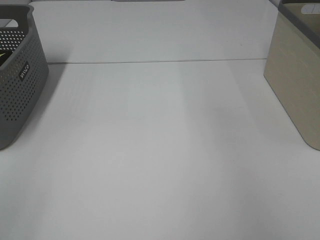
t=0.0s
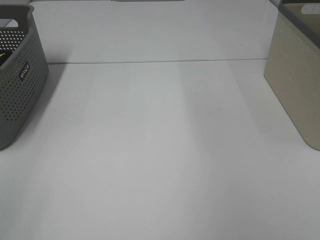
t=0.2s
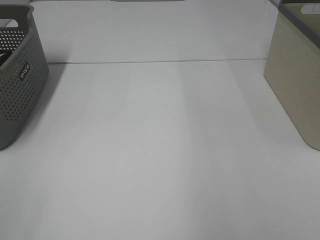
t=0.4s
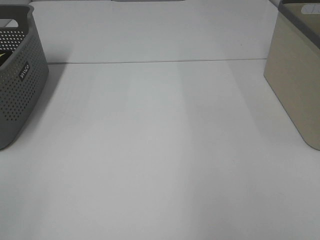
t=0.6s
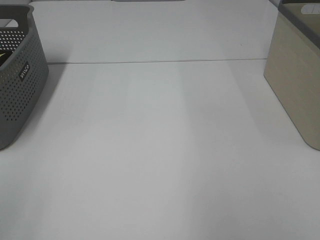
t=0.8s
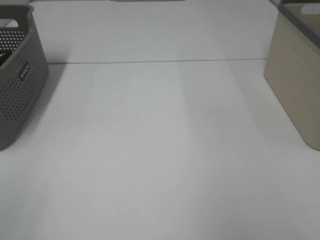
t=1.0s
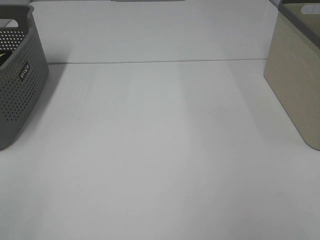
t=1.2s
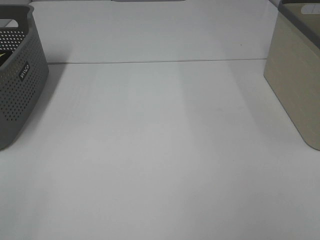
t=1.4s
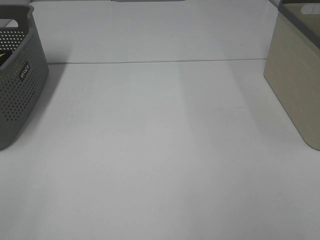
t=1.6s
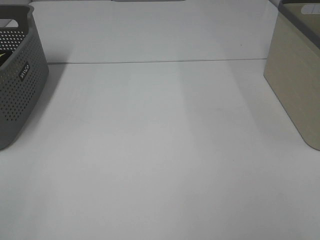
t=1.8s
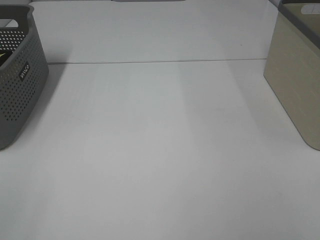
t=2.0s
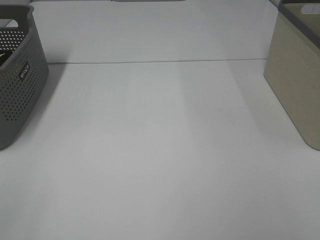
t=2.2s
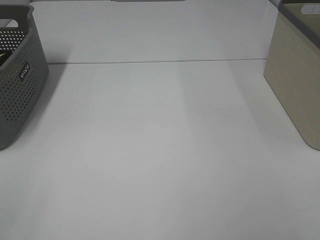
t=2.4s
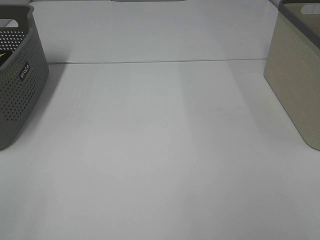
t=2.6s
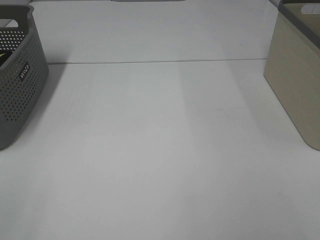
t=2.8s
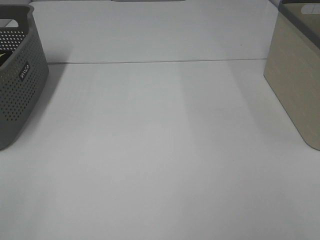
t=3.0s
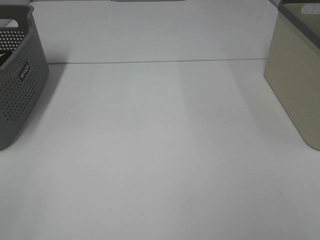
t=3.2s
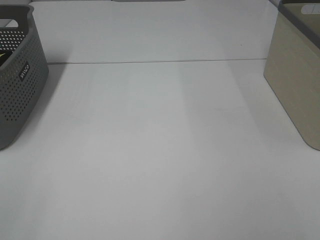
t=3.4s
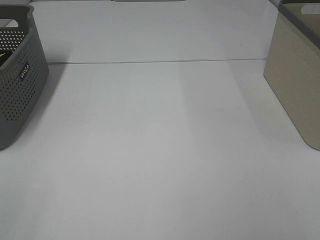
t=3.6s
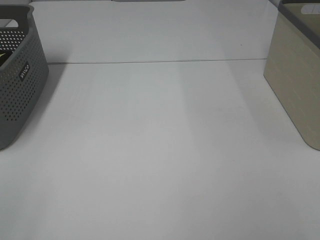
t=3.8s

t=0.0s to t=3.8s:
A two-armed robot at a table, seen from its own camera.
t=2.6s to t=3.8s: Both grippers stay about where they are.

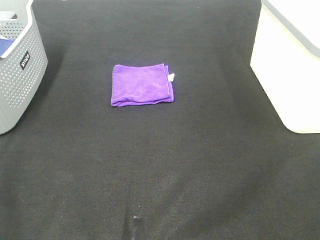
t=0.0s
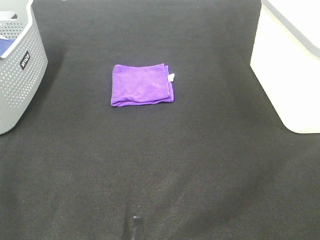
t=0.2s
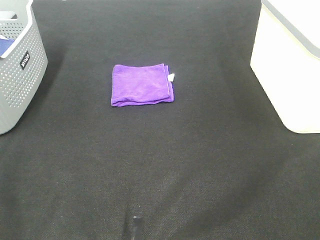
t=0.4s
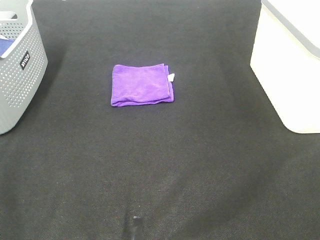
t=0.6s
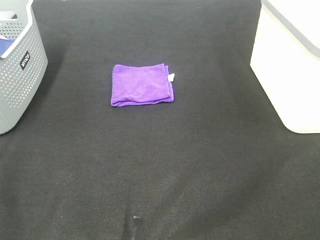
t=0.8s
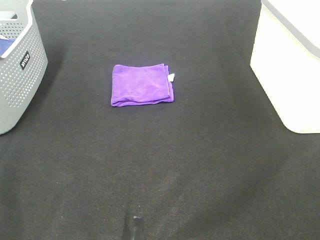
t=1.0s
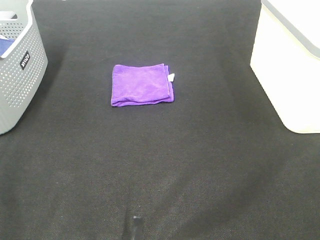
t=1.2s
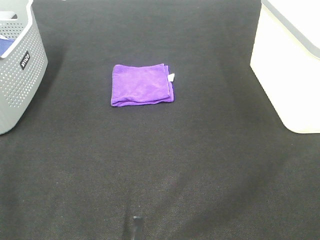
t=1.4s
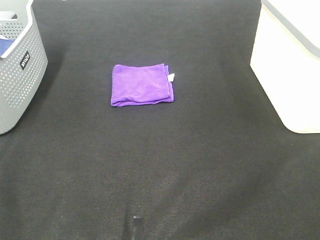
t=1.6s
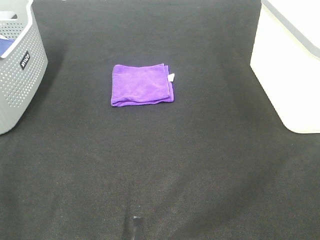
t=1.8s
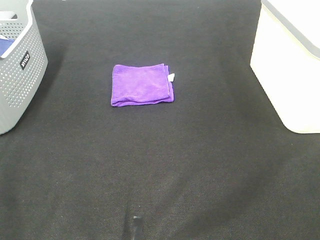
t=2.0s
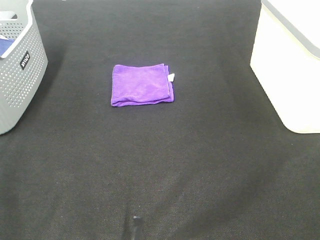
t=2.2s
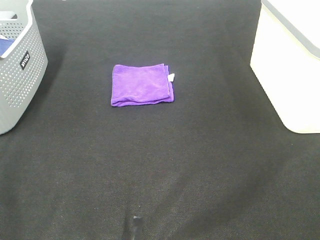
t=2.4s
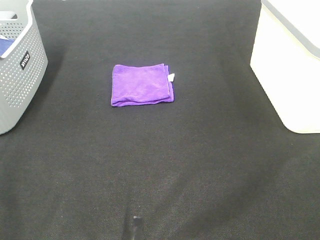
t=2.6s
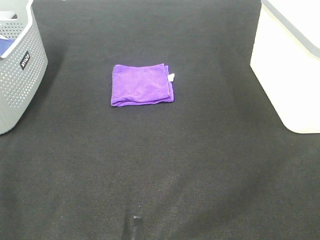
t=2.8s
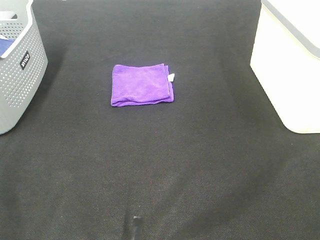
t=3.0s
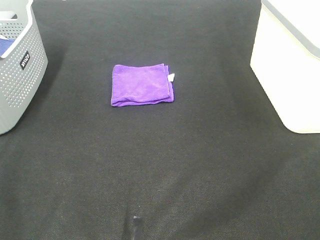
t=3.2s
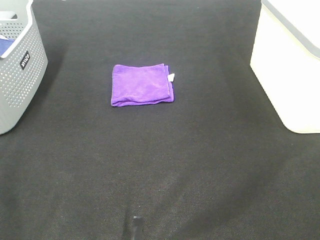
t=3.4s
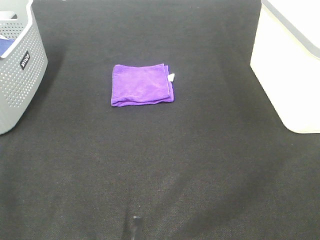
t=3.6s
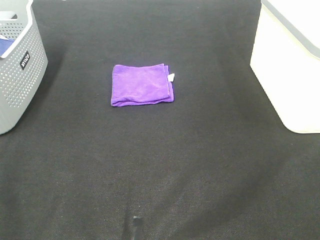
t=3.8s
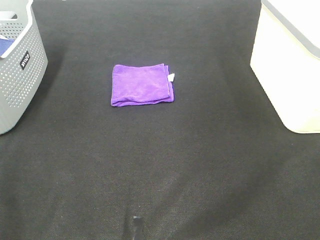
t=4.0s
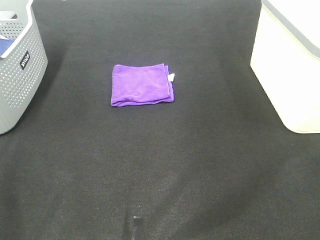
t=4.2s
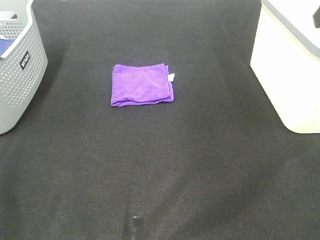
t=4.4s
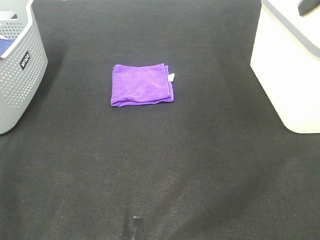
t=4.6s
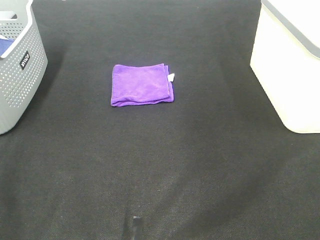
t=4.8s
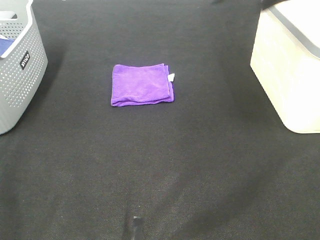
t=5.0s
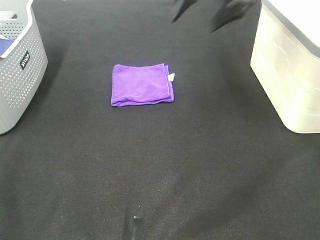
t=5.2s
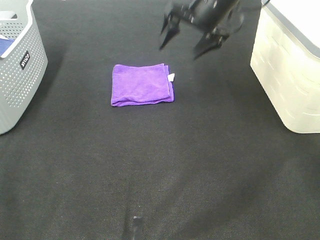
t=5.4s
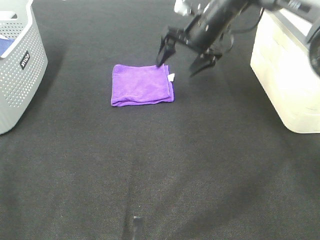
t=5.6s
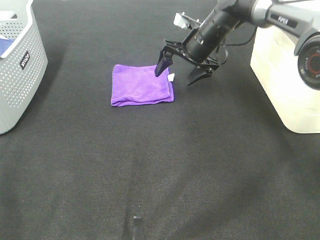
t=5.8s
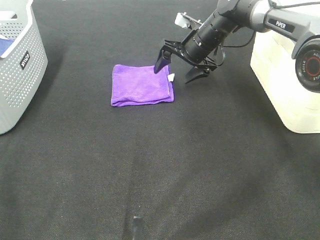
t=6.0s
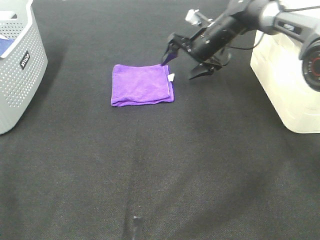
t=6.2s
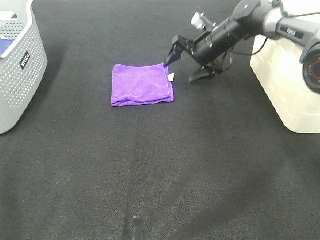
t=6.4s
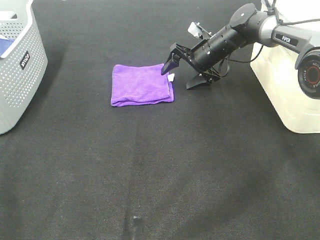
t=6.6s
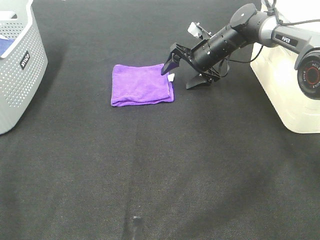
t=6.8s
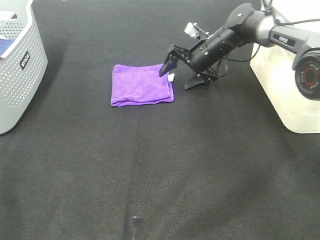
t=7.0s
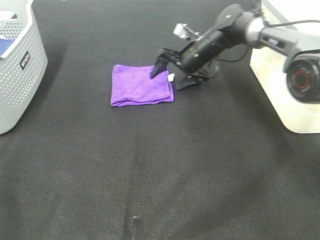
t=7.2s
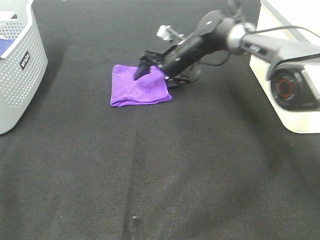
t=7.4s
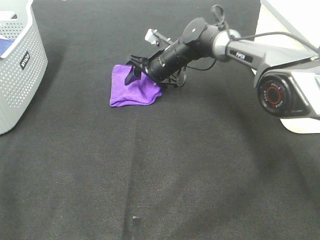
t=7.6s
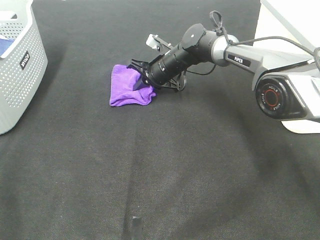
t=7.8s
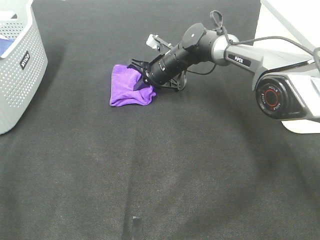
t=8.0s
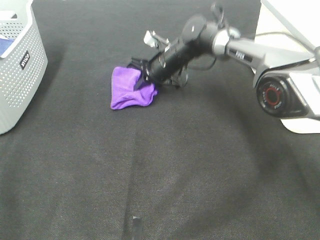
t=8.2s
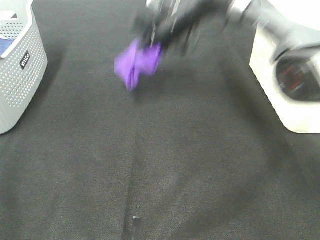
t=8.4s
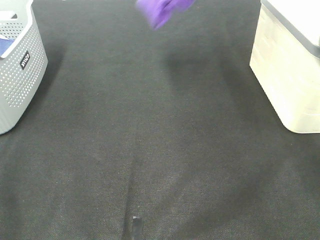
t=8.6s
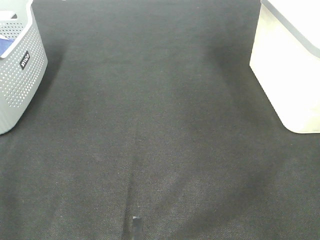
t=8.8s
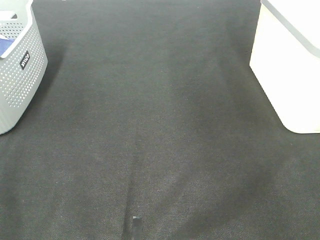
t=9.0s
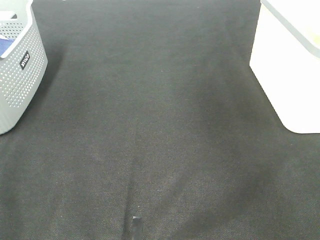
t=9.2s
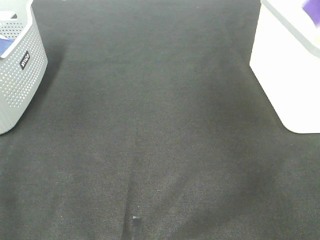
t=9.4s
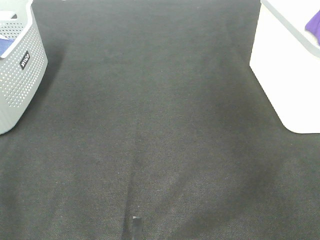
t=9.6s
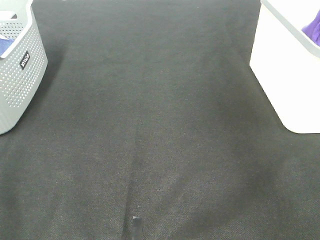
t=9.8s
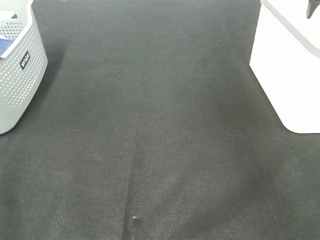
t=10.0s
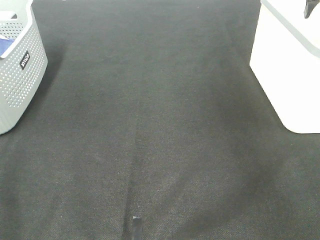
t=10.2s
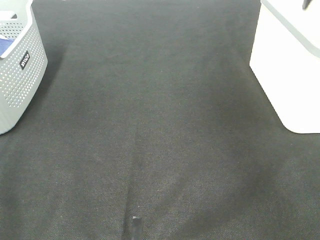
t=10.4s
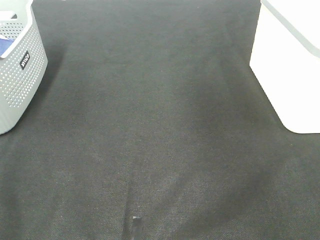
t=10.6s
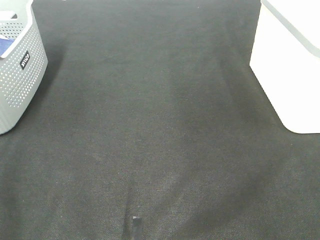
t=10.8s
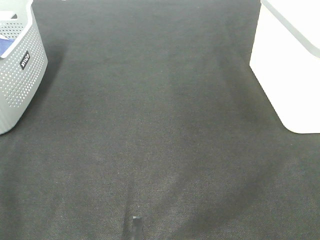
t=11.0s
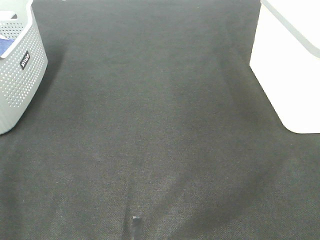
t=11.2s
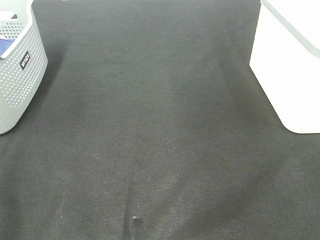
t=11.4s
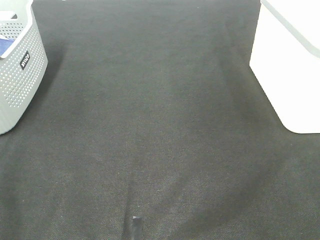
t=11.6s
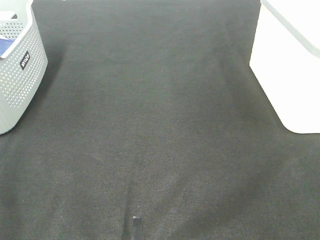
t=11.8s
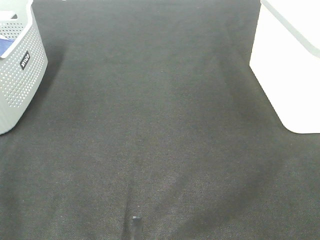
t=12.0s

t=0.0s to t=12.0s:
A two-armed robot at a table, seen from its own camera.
Step, t=0.0s to t=7.8s: Right hand: grab the folded purple towel.
Step, t=8.0s to t=10.0s: Right hand: place the purple towel in right basket.
t=0.0s to t=3.0s: Both grippers stay about where they are.
t=4.4s to t=6.0s: The right gripper is displaced forward, downward and to the left by roughly 40 cm.
t=6.0s to t=7.6s: The right gripper travels to the left and downward by about 10 cm, and closes its fingers.
t=7.6s to t=9.0s: The right gripper moves upward and to the right, roughly 40 cm, and closes.

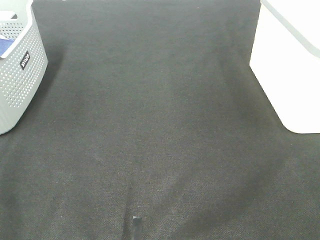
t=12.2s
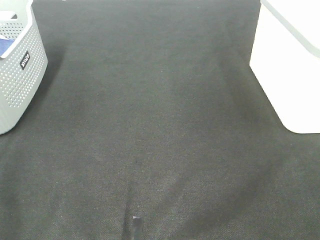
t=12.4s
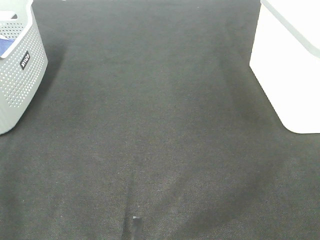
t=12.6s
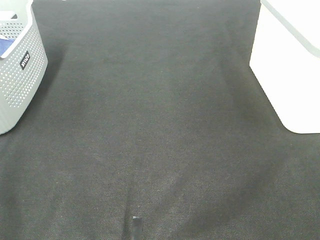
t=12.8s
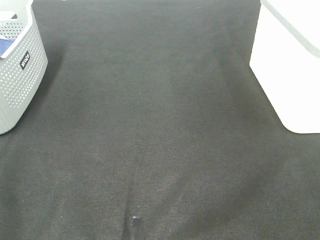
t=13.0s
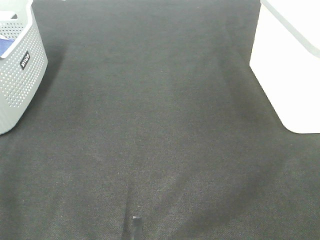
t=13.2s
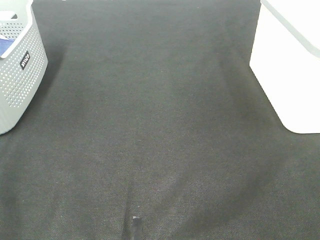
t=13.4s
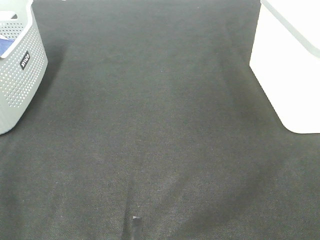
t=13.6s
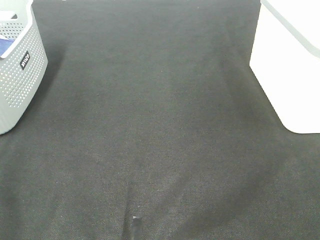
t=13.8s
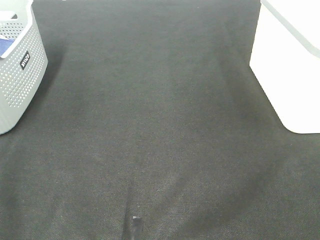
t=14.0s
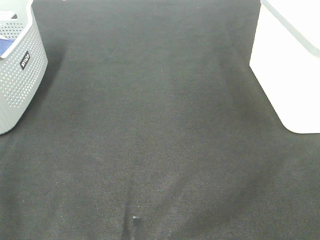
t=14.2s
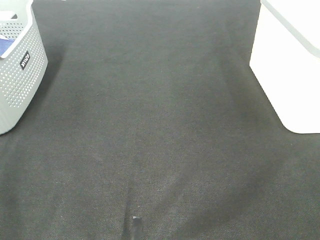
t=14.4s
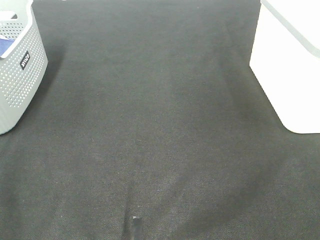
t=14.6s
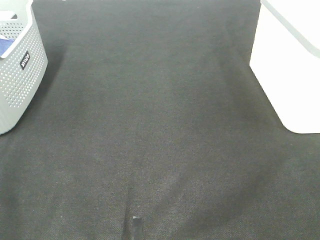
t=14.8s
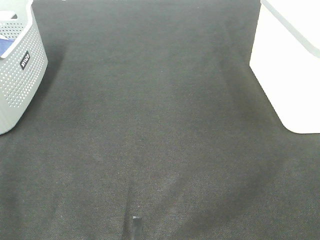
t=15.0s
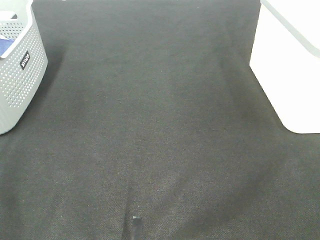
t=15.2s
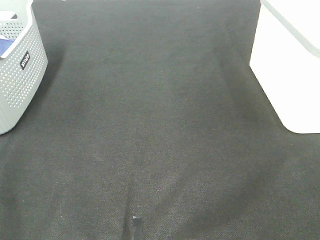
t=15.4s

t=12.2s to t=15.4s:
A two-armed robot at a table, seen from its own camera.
t=12.2s to t=13.8s: Both grippers stay put.

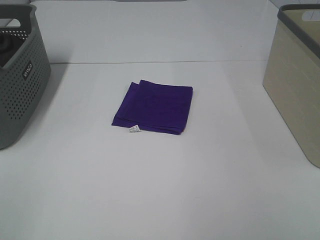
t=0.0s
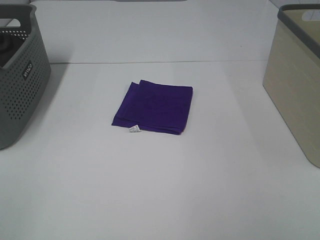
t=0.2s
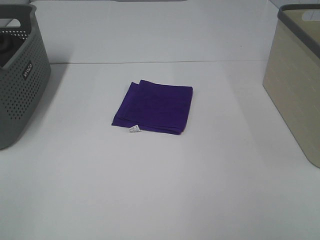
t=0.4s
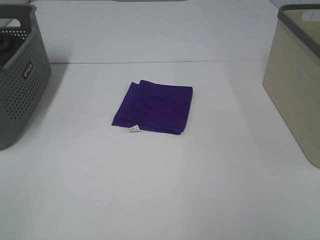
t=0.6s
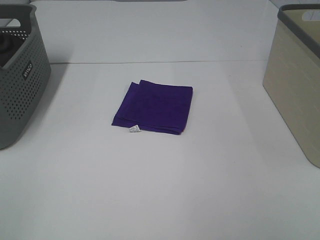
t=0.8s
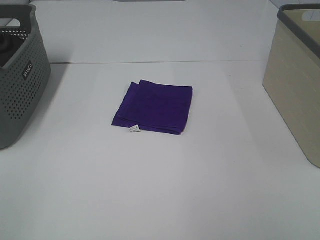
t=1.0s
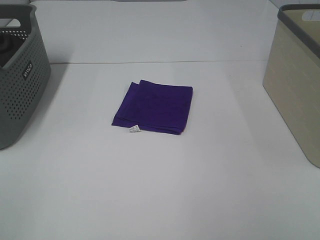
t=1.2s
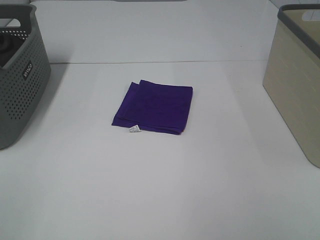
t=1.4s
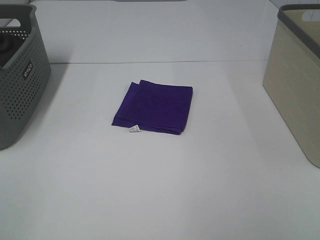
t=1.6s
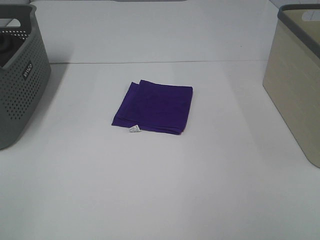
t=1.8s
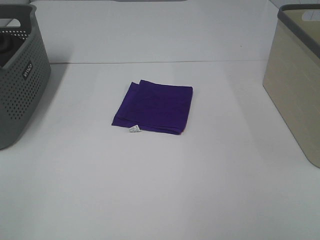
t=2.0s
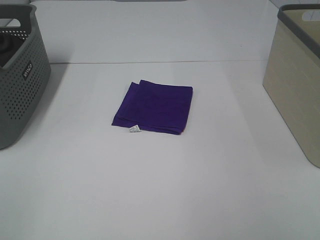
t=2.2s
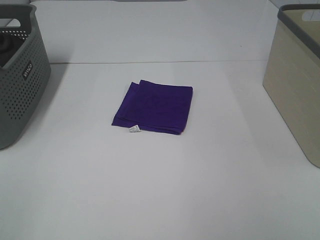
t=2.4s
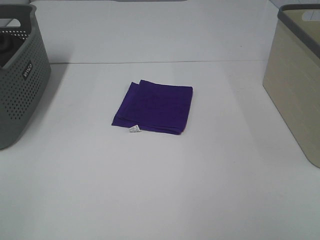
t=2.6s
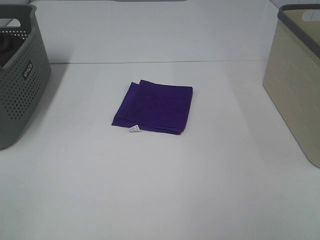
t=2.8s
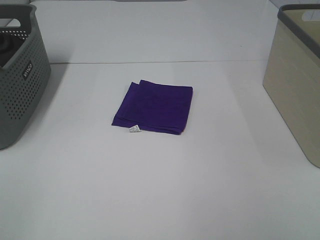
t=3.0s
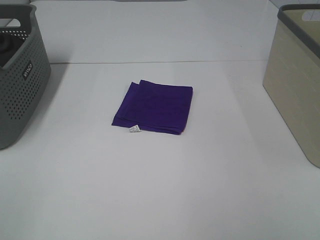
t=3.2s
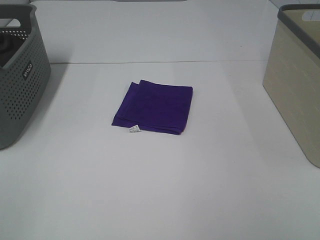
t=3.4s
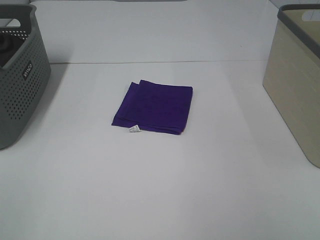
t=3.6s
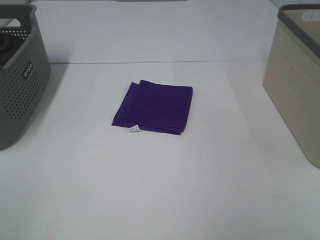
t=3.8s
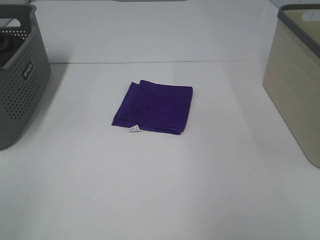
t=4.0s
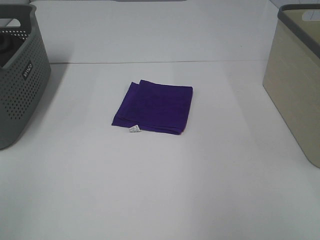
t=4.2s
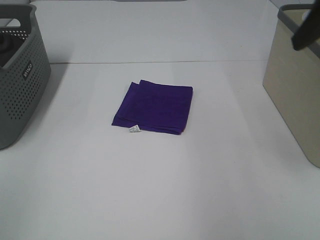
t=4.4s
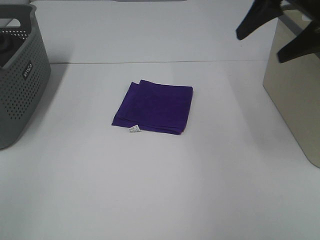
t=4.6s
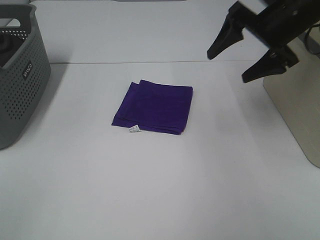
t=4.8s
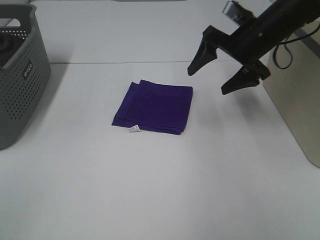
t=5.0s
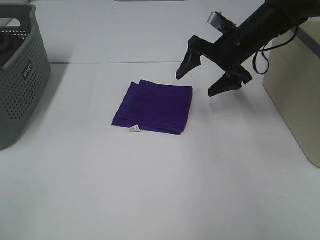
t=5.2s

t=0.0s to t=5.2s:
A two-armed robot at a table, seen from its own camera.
t=0.0s to t=3.4s: Both grippers stay about where they are.
t=3.4s to t=5.2s: The right gripper is displaced forward by roughly 40 cm.
